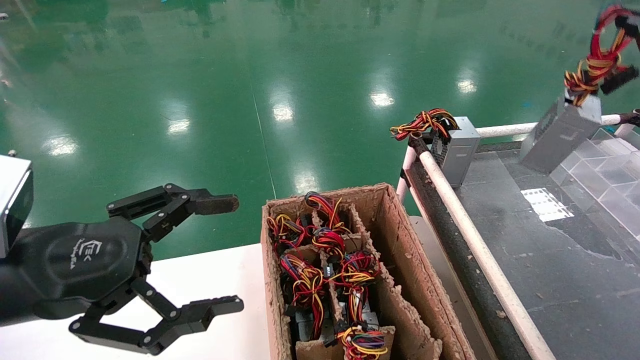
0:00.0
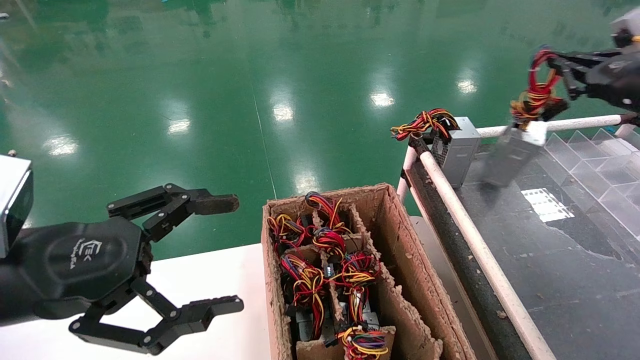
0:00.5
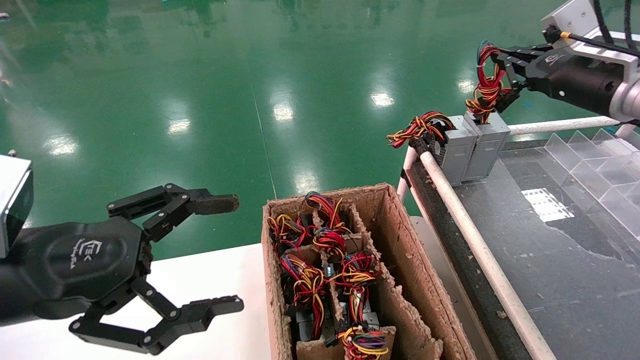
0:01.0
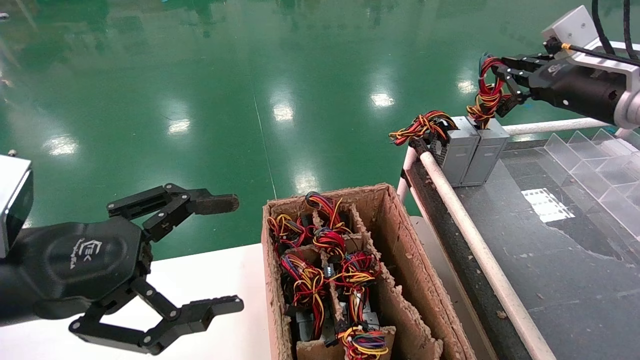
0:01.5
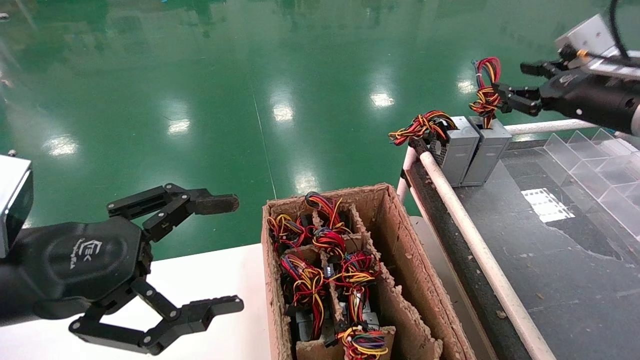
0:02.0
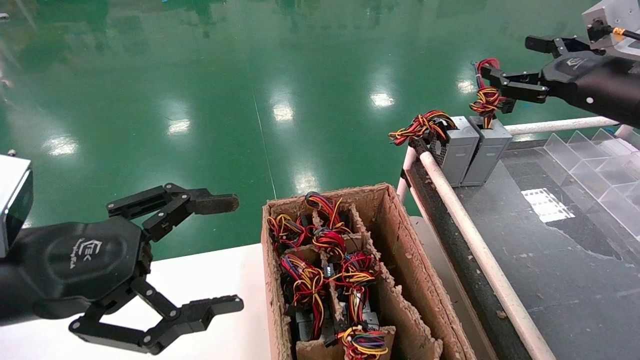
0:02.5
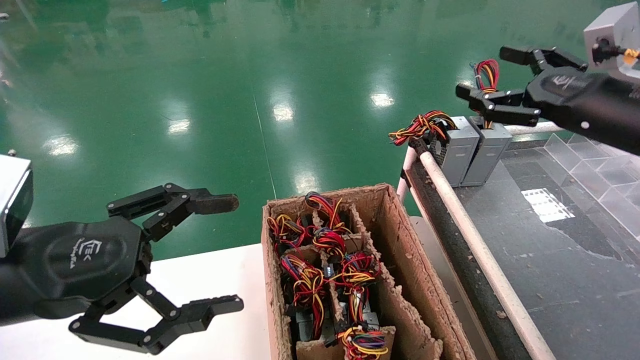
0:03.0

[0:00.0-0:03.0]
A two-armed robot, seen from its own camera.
0:00.0 to 0:01.5: The right gripper goes roughly 10 cm to the left and forward.
0:01.5 to 0:03.0: The right gripper goes approximately 10 cm backward, and opens.

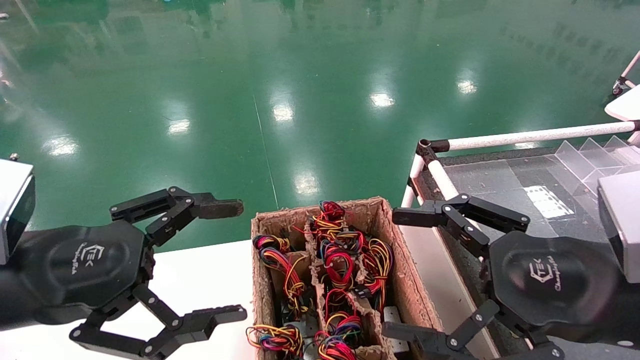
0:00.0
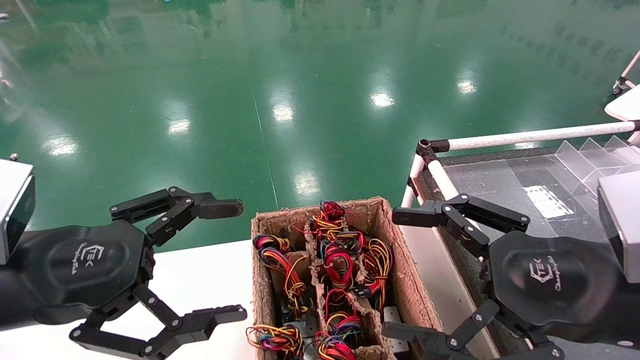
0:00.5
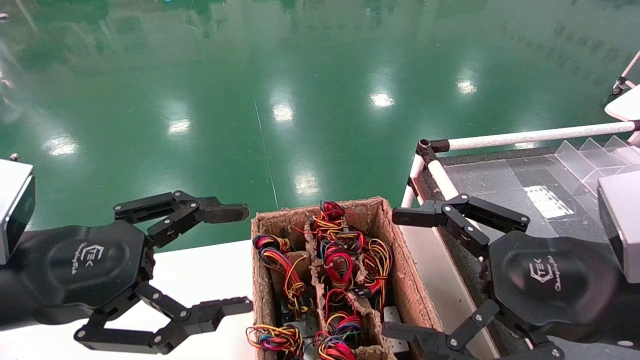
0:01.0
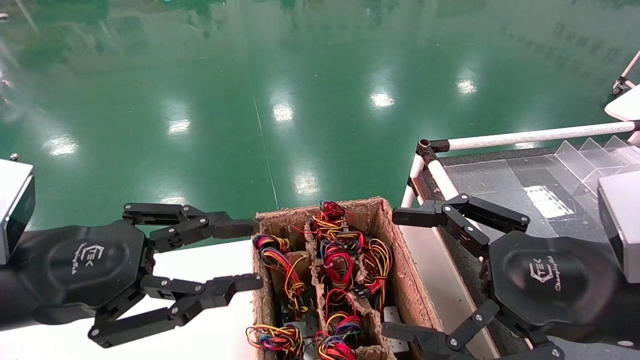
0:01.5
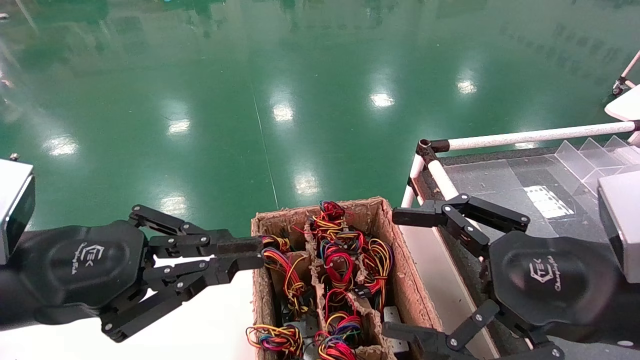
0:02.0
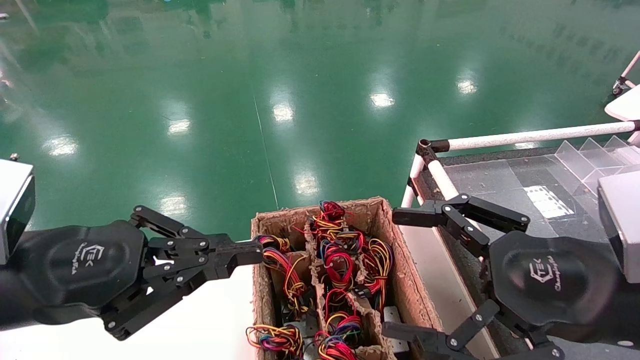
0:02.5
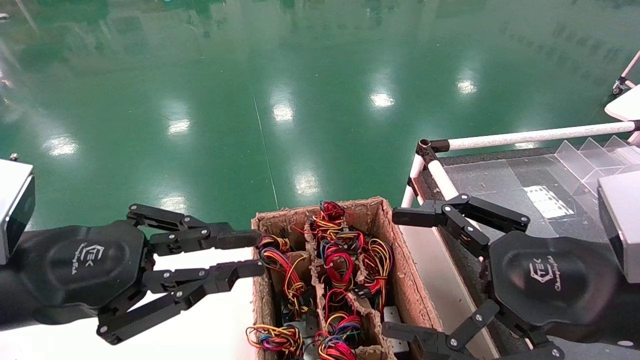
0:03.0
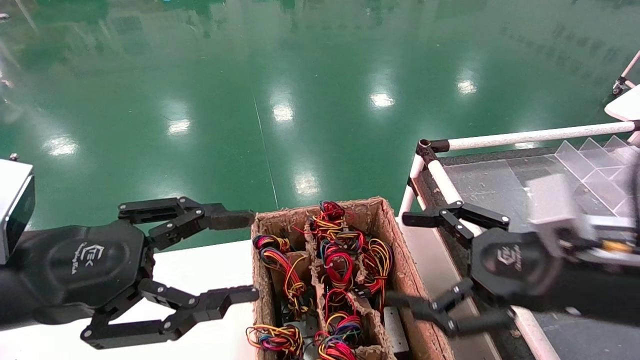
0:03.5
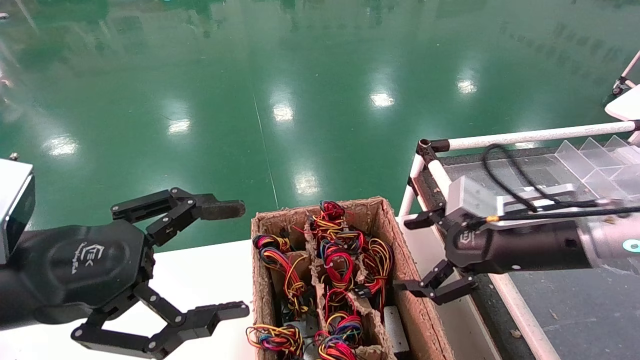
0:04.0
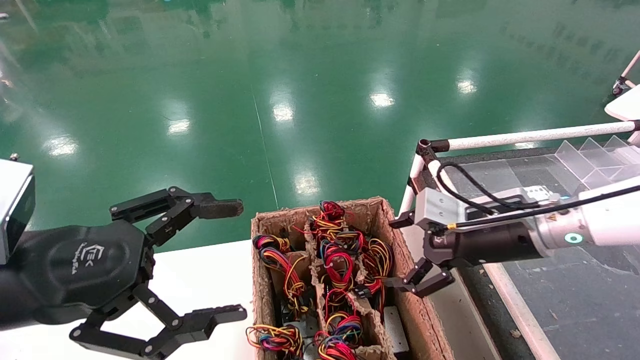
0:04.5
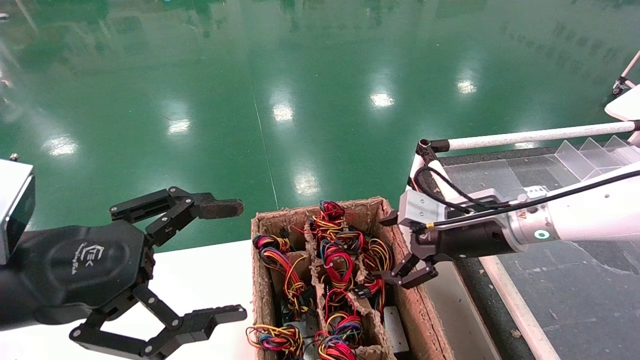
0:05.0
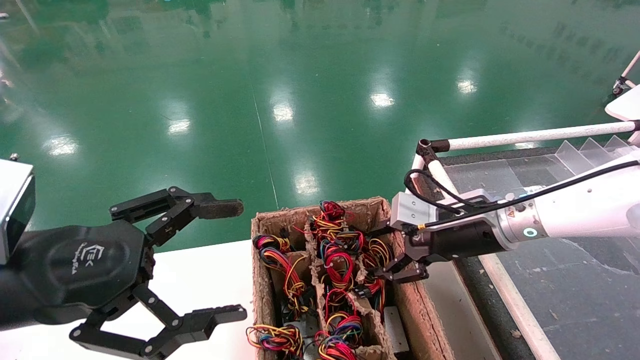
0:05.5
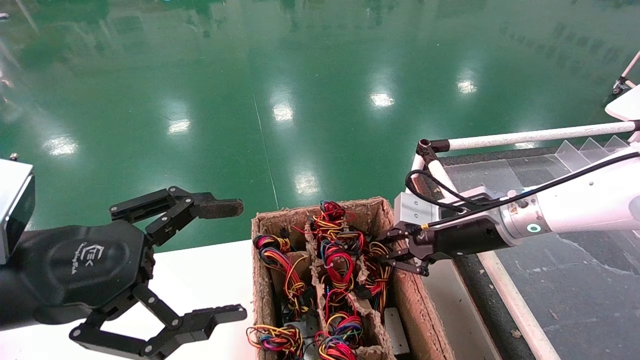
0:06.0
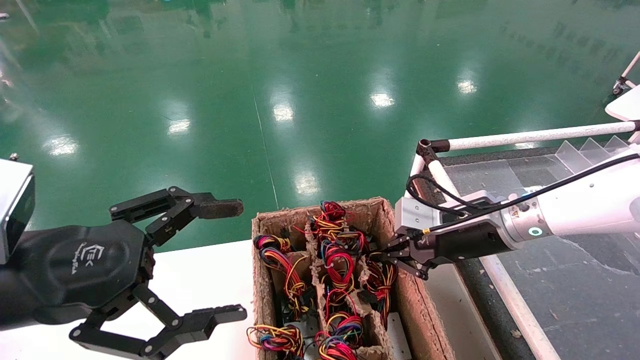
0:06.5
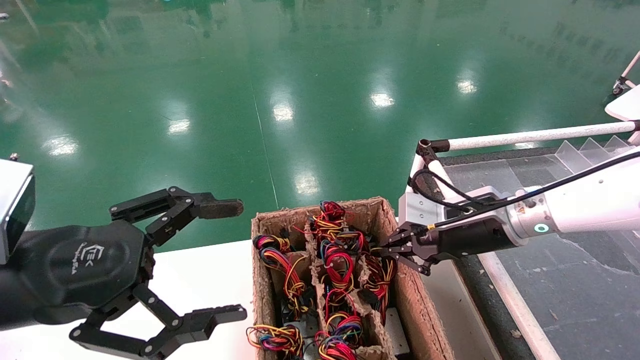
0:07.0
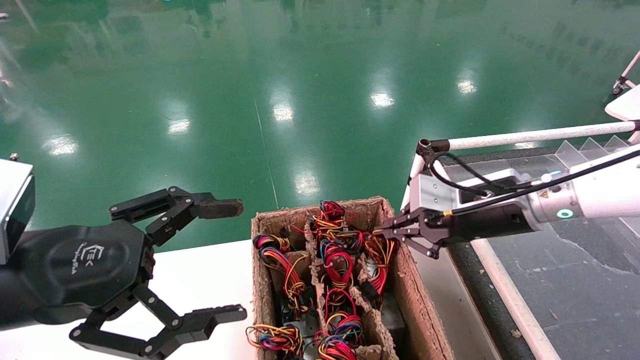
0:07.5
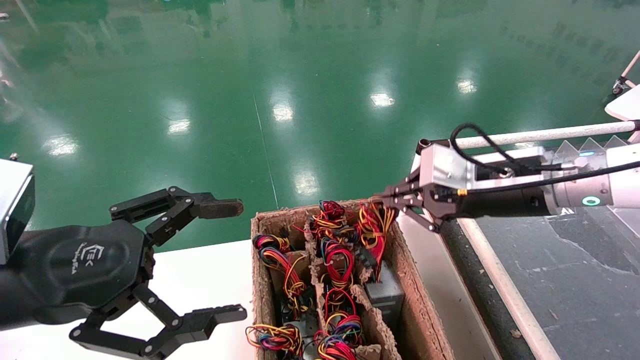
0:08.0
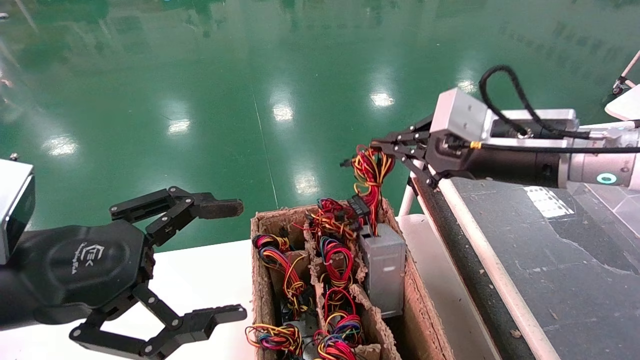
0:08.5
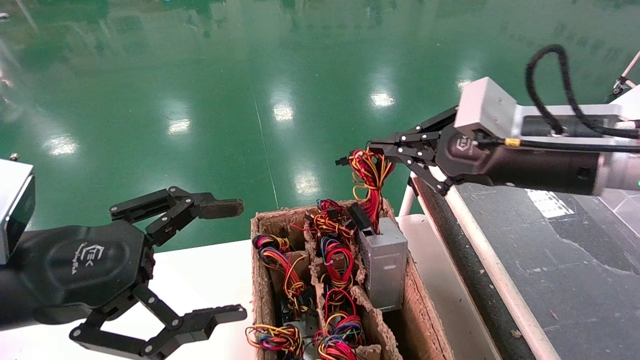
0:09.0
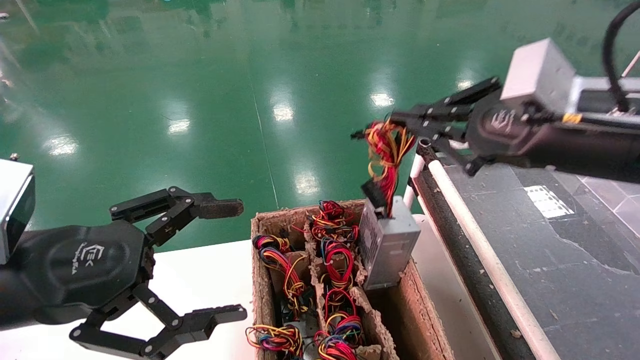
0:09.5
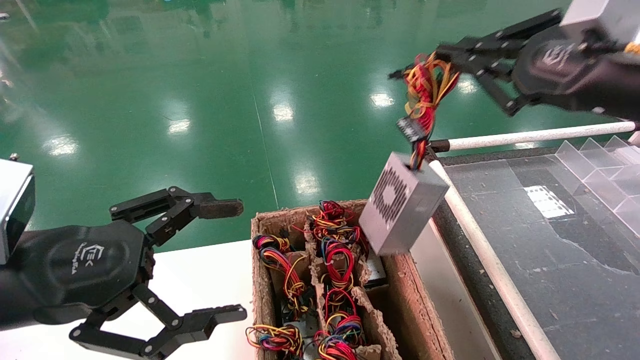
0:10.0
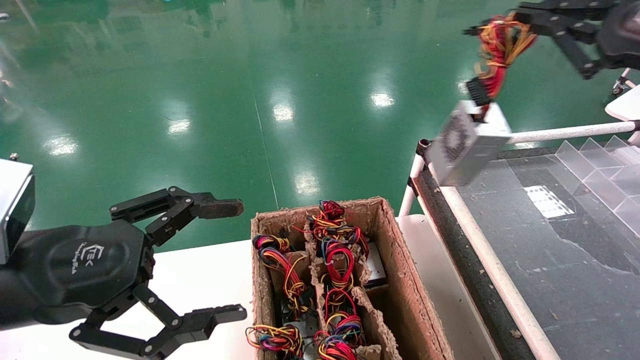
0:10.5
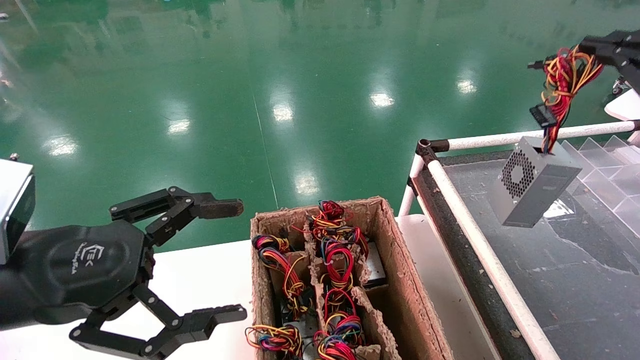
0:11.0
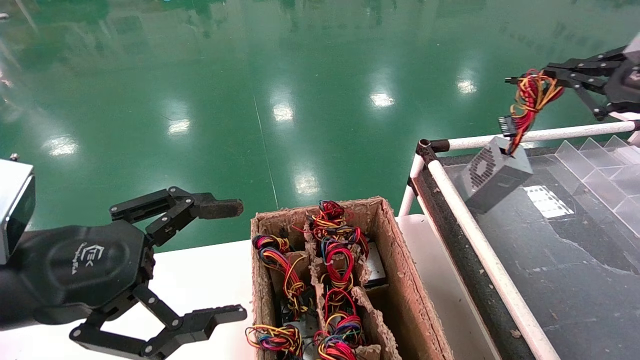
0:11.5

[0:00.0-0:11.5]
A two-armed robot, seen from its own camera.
Step, 0:02.5 to 0:06.0: Grab and lift the power supply from the large box.
0:00.0 to 0:02.0: The left gripper closes its fingers.
0:02.0 to 0:04.0: The right gripper shifts approximately 15 cm forward, while the left gripper opens.
0:04.0 to 0:06.0: The right gripper is displaced forward by roughly 10 cm, and closes.
0:06.0 to 0:07.5: The grippers stay close to where they were, moving slightly.
0:07.5 to 0:09.5: The right gripper heads backward and upward, covering approximately 15 cm.
0:09.5 to 0:11.5: The right gripper shifts about 15 cm to the right.

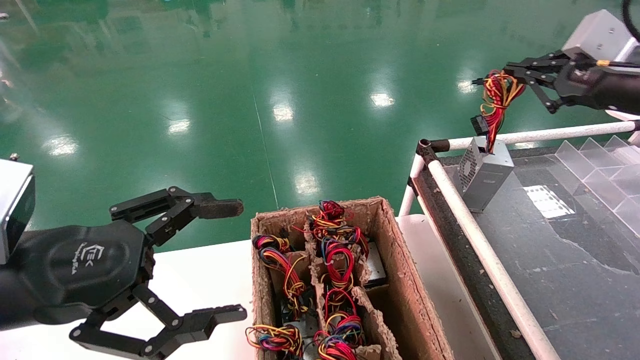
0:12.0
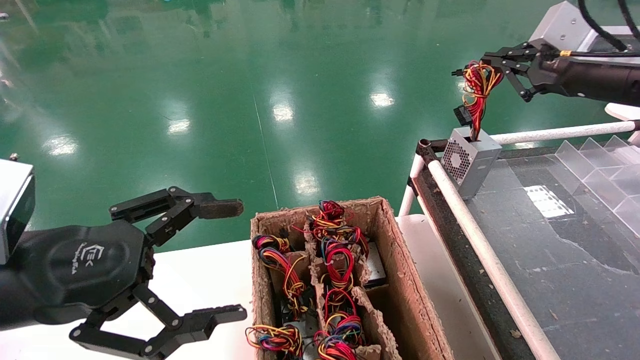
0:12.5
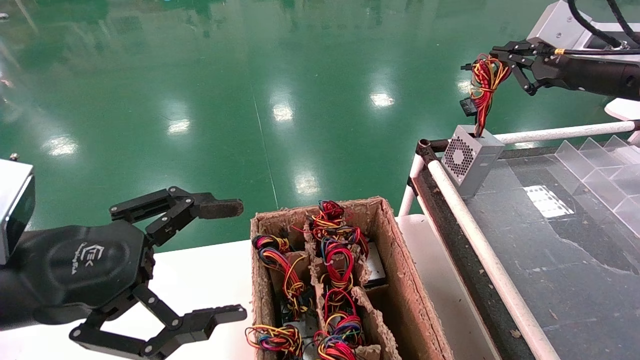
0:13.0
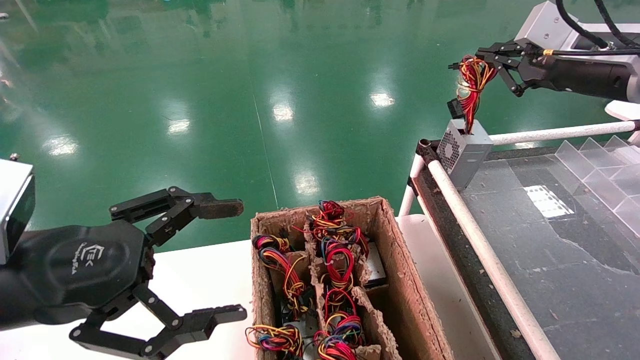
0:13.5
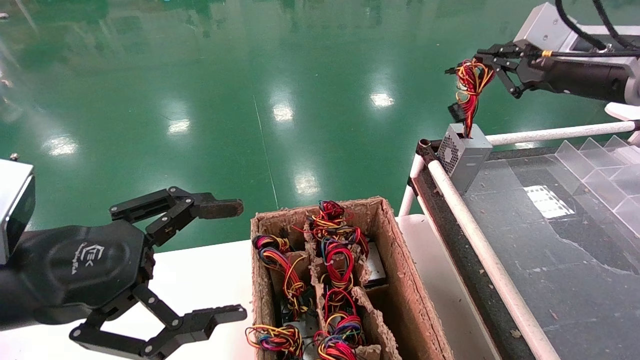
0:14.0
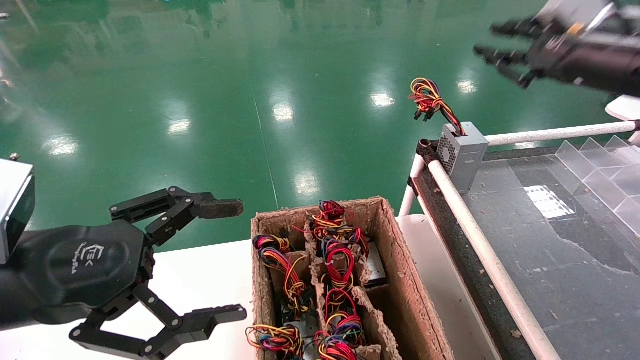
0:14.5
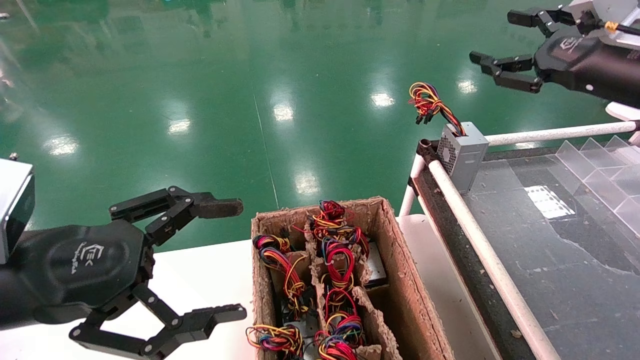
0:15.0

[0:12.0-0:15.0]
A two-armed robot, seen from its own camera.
Step, 0:12.0 to 0:14.0: Place the power supply on the operating table.
0:12.0 to 0:13.5: The right gripper moves some 5 cm.
0:13.5 to 0:15.0: The right gripper opens its fingers.
